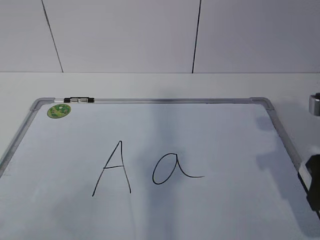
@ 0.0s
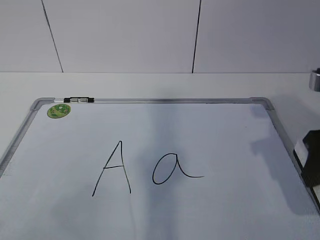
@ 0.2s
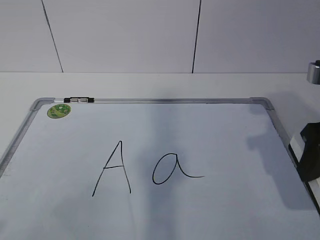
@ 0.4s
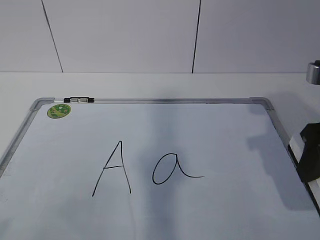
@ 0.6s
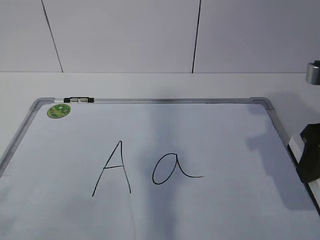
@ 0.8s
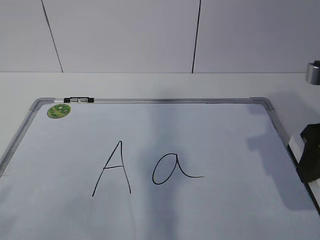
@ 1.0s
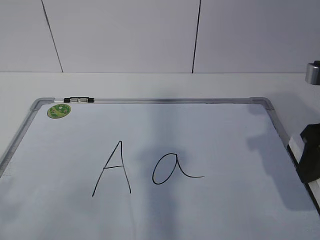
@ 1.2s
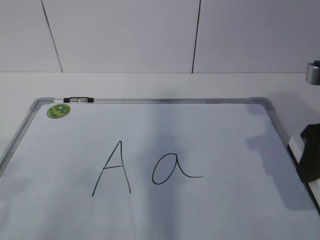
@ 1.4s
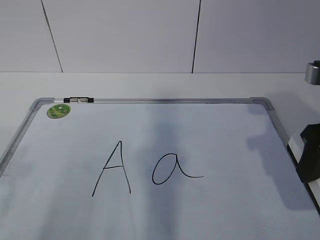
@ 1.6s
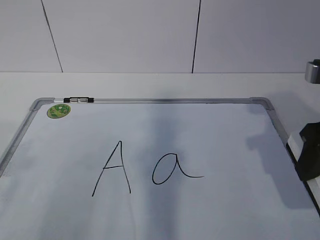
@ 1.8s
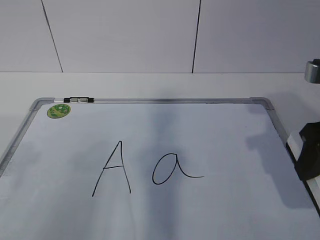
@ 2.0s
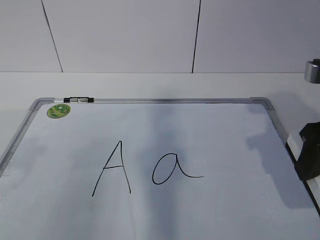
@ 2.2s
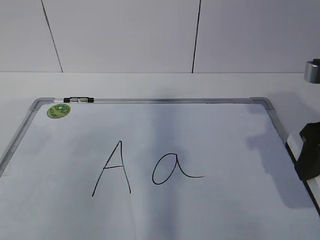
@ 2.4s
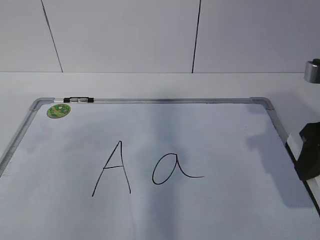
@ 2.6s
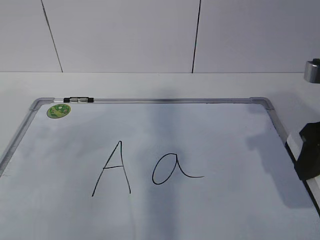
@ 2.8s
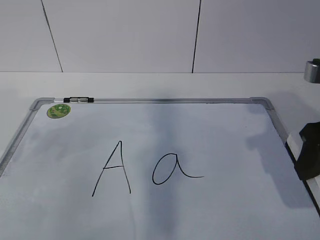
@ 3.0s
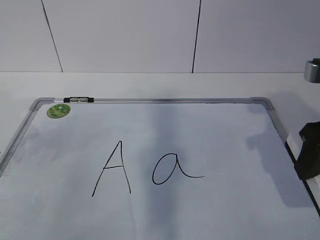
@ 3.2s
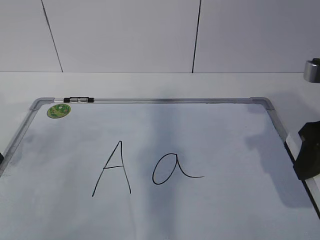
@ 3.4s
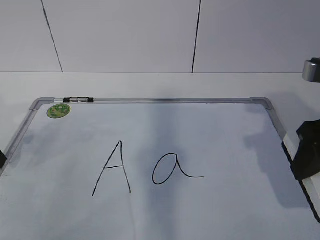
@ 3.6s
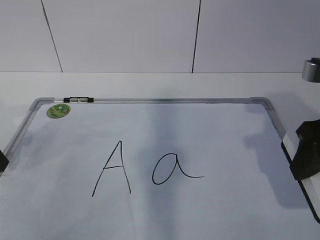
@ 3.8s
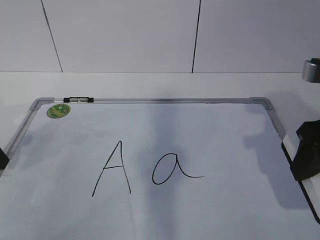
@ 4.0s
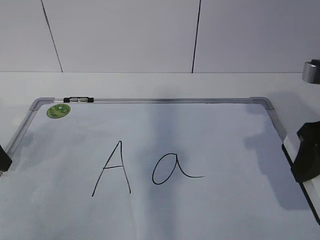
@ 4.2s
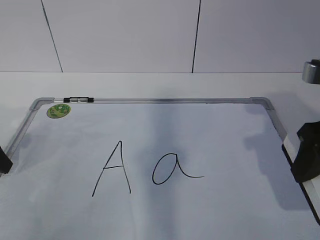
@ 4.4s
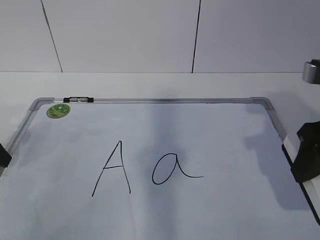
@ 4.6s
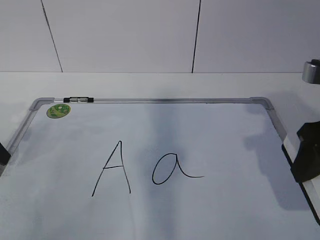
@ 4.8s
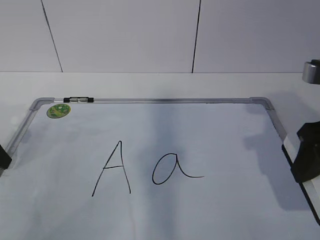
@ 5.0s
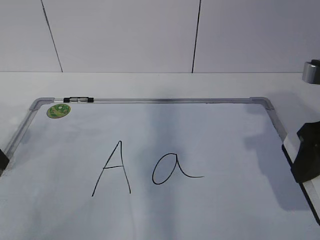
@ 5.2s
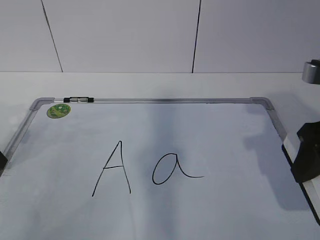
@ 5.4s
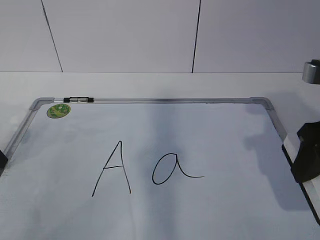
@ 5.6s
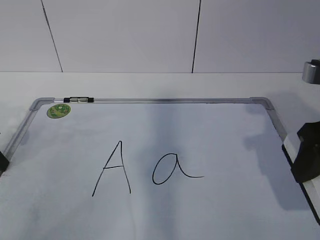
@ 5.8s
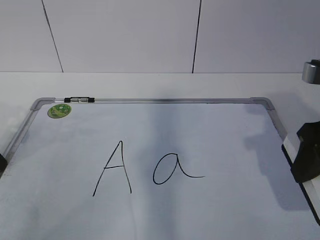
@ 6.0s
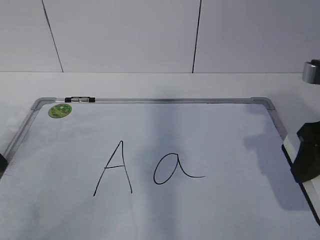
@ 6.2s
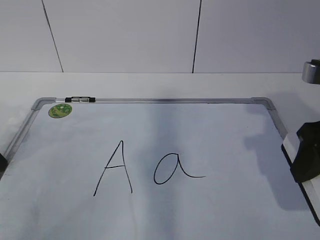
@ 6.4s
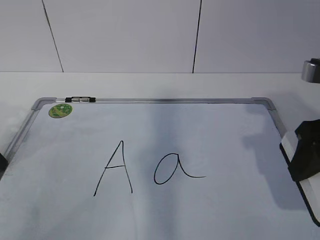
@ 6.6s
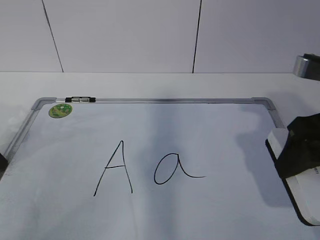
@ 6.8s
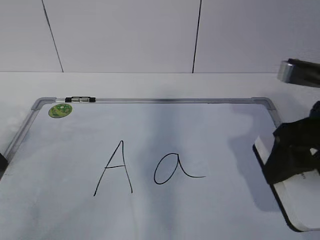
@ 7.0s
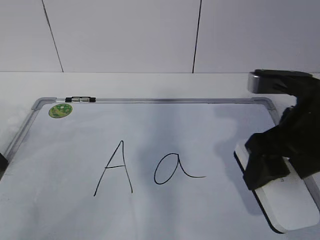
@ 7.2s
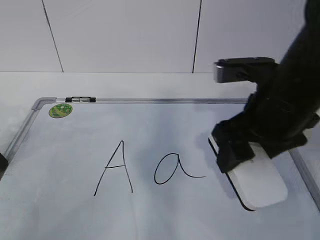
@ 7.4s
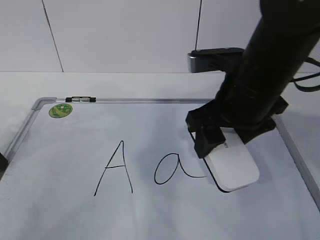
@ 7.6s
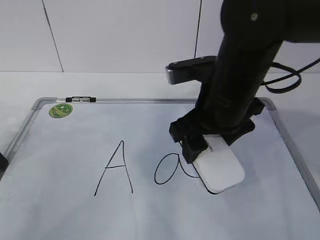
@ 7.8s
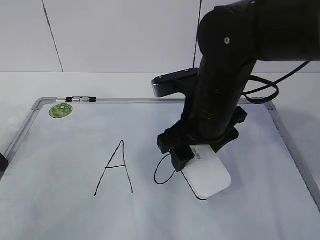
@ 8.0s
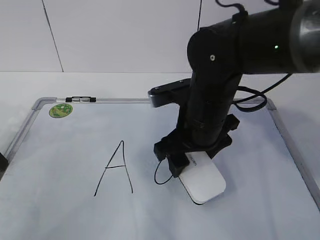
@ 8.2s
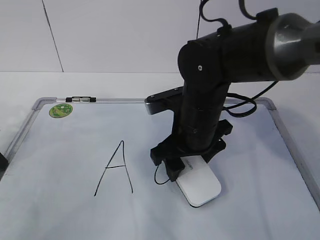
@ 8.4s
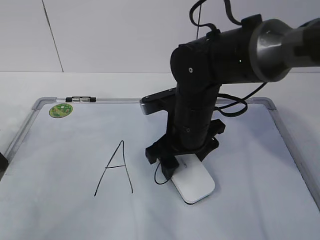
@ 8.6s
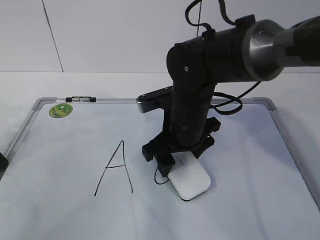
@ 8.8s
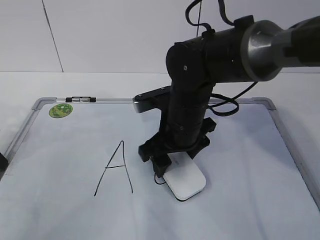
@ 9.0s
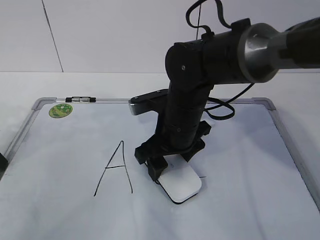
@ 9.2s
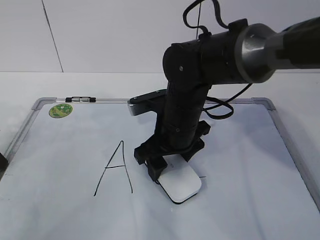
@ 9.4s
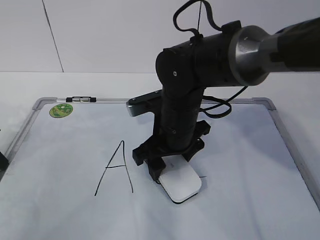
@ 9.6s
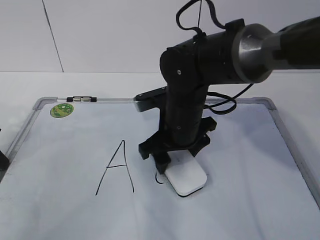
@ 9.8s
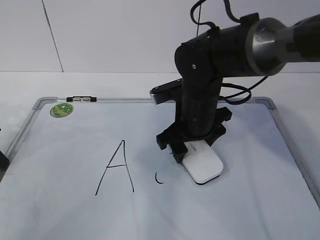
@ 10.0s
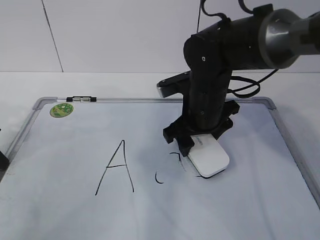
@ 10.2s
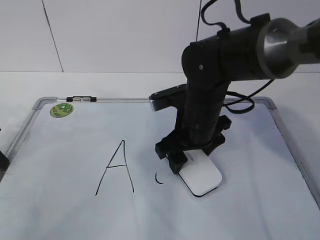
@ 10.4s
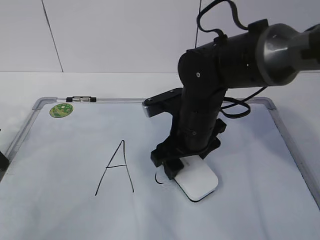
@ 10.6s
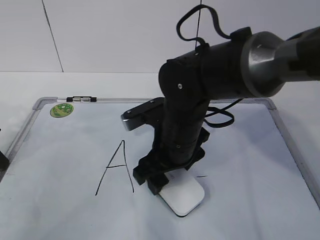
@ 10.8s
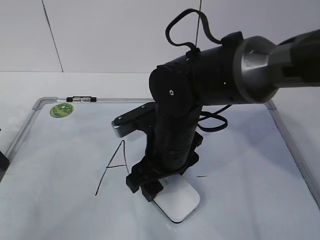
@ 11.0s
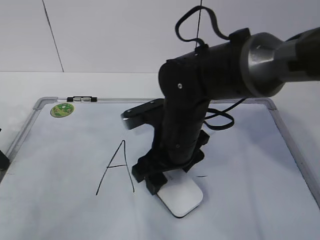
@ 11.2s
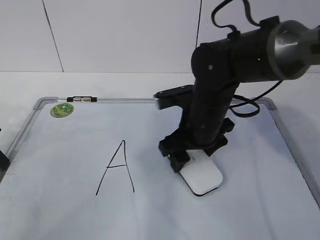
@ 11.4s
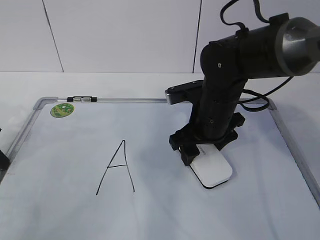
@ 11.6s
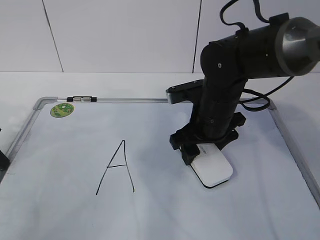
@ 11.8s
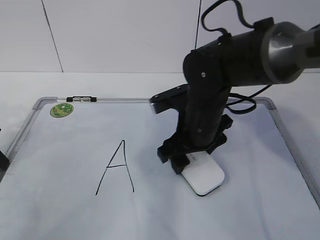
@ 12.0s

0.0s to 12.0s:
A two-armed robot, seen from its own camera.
Task of the whole recording: pick up the eraser on the blackboard and erase the letter "a".
Step, 0.0s to 2.8s: Hold the drawing board steady with your left hand.
Step, 3.2s to 8.6s: Erase the letter a with your right hand.
Step, 8.8s to 11.4s: Put down the eraser with your right hand.
3.0s to 4.4s: The left gripper is displaced downward by approximately 10 cm.
6.0s to 7.6s: The right gripper shifts about 10 cm to the left and forward.
7.6s to 9.0s: The right gripper travels downward, to the left and forward by about 15 cm.
9.0s to 10.4s: The grippers move only a little.
10.4s to 12.0s: The right gripper reaches about 5 cm to the left, then returns.

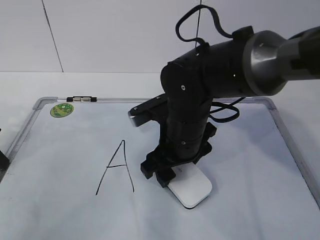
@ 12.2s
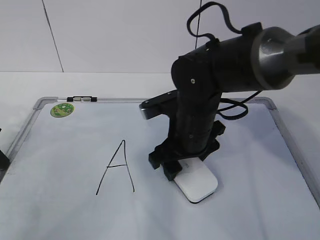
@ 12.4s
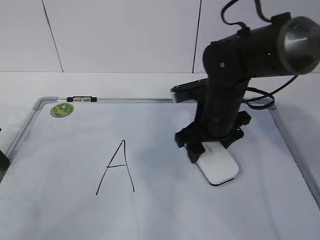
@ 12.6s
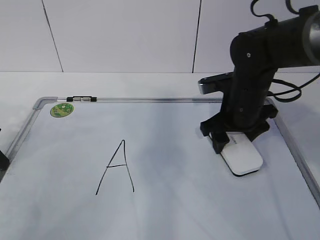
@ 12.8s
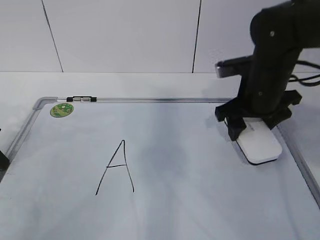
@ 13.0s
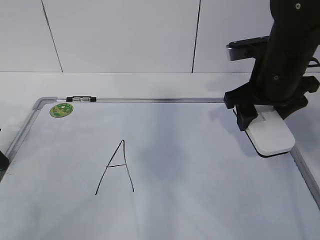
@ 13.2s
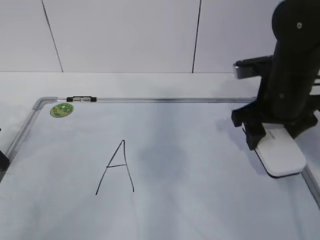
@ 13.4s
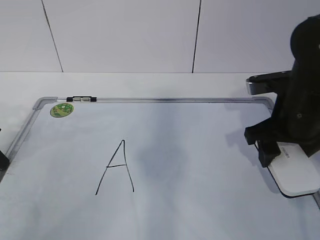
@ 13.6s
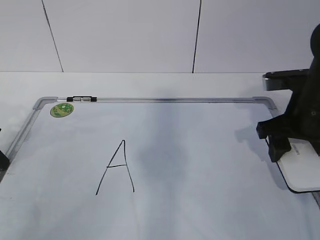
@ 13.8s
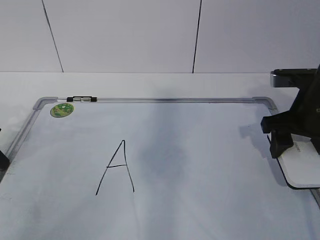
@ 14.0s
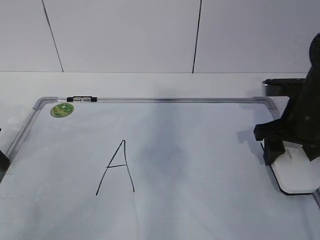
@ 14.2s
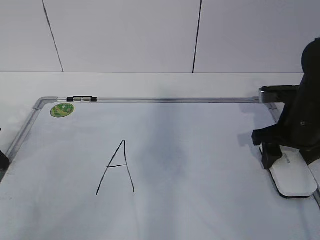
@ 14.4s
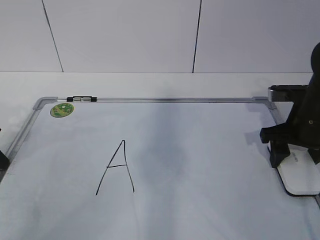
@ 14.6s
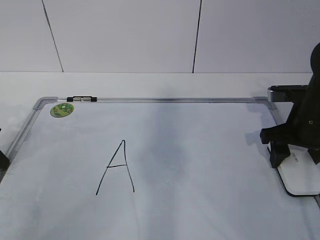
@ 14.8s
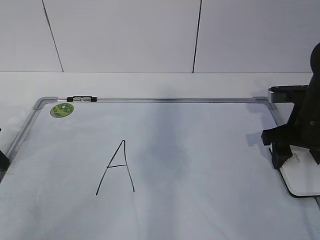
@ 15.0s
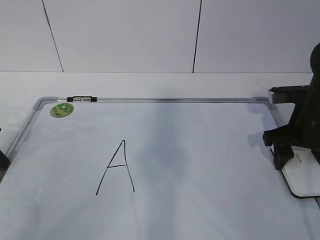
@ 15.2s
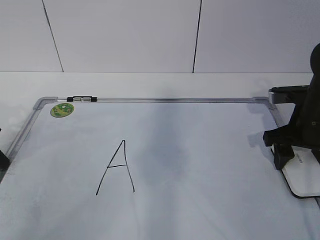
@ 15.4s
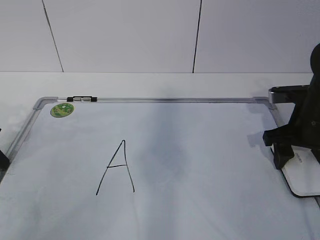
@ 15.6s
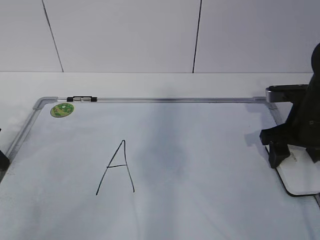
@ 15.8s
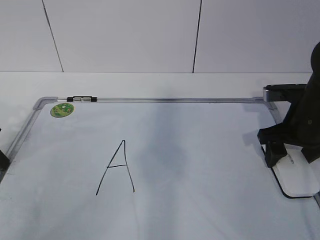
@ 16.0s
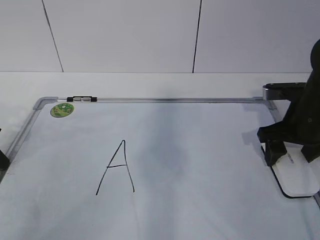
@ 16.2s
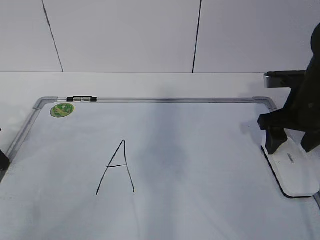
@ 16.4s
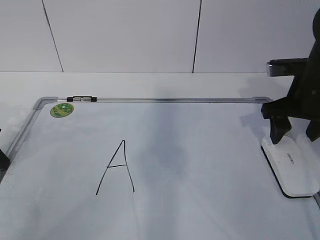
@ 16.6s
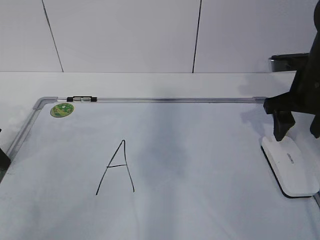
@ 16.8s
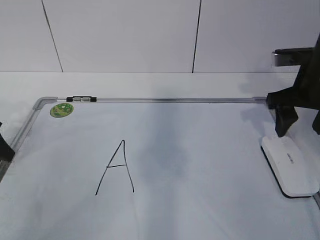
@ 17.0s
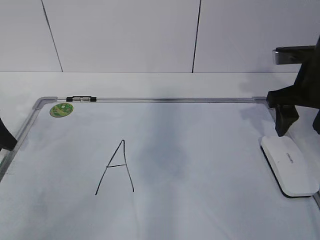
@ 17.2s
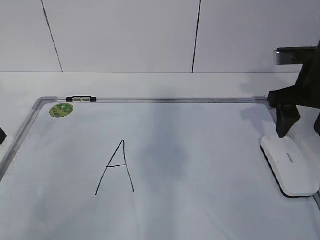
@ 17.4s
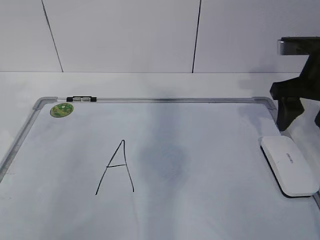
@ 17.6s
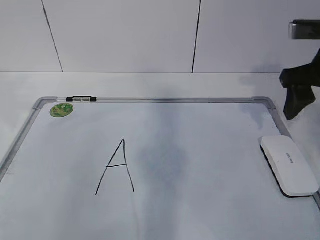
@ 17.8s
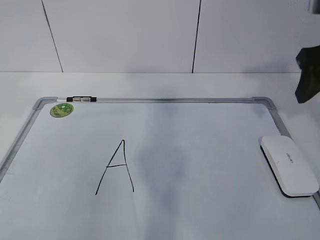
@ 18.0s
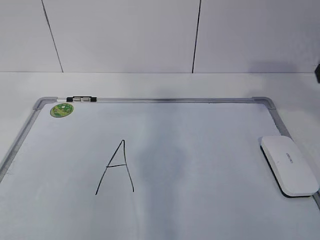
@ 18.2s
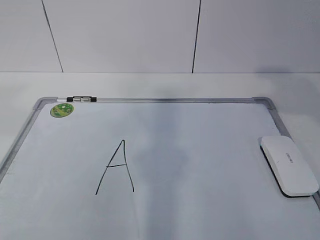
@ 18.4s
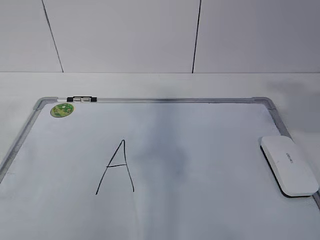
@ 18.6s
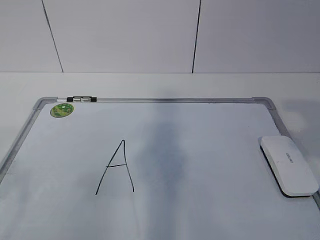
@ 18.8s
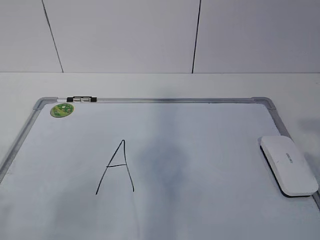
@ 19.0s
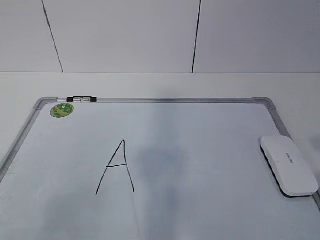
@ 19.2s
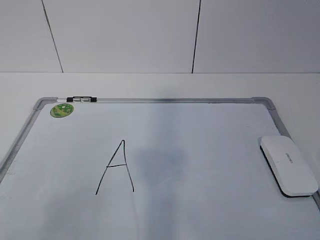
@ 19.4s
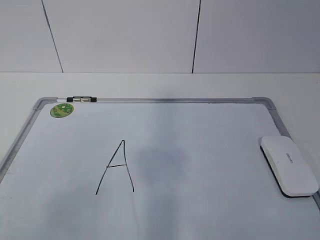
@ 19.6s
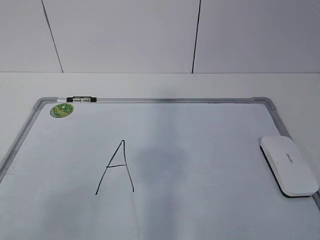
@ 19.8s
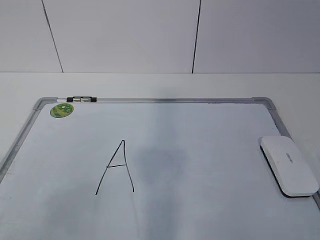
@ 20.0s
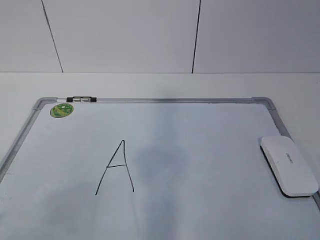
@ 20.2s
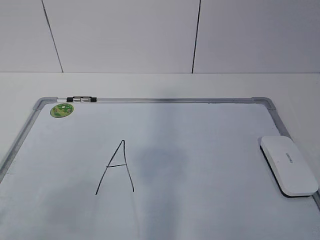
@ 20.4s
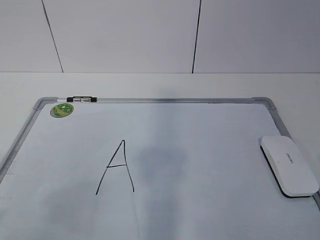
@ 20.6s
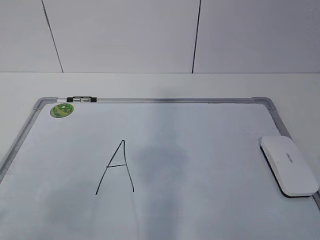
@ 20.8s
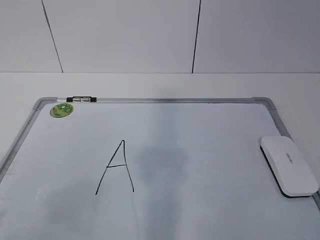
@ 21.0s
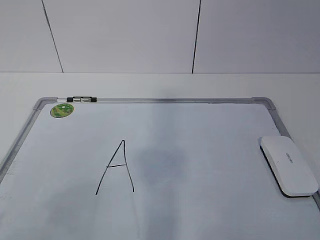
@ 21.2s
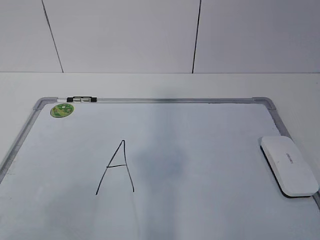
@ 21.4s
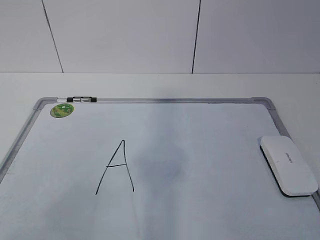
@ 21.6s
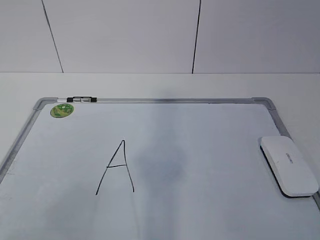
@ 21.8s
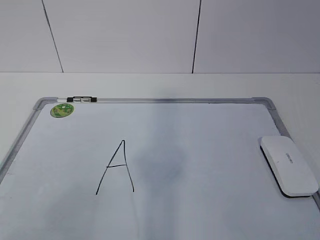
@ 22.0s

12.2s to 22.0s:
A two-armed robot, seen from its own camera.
Task of the whole recording: pick up the eraser on the blackboard and erase the letter "a".
12.2s to 13.6s: The right gripper travels to the right by some 15 cm.
13.6s to 15.0s: The right gripper moves to the right, about 5 cm.
15.0s to 16.4s: The grippers stay close to where they were, moving slightly.
16.4s to 17.8s: The right gripper is displaced upward by approximately 10 cm. The left gripper heads upward, covering roughly 15 cm, and opens its fingers.
17.8s to 19.2s: The right gripper travels backward by some 25 cm.
